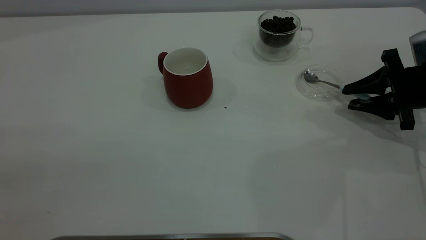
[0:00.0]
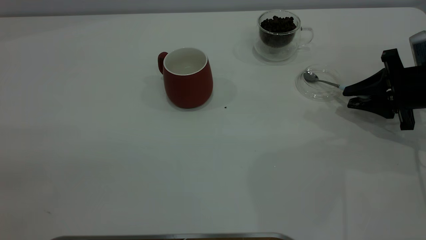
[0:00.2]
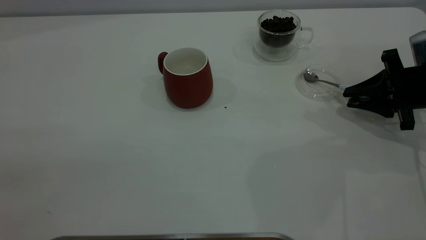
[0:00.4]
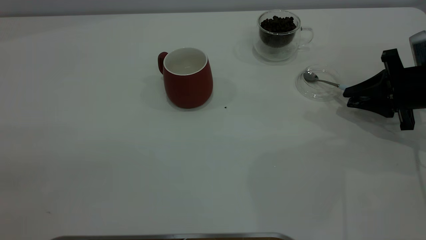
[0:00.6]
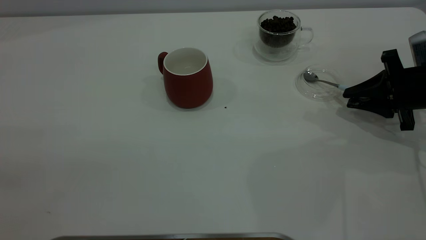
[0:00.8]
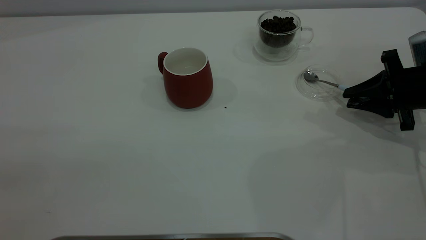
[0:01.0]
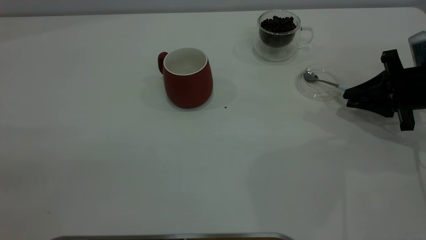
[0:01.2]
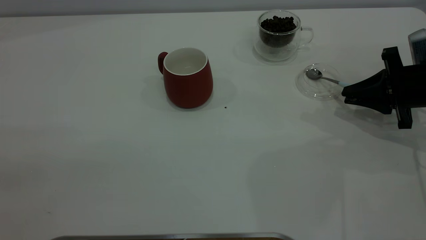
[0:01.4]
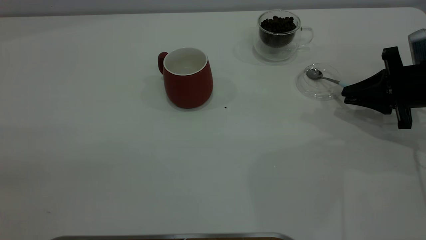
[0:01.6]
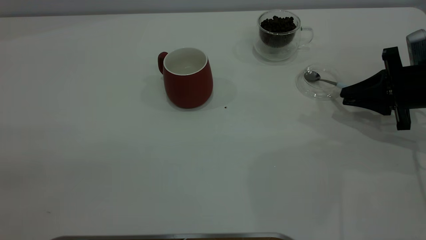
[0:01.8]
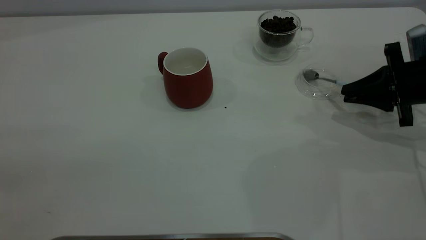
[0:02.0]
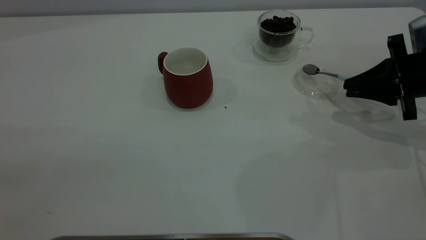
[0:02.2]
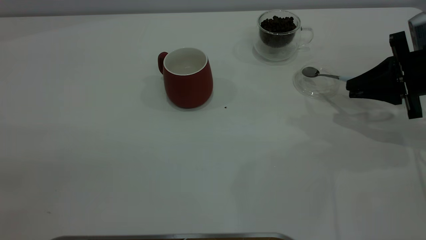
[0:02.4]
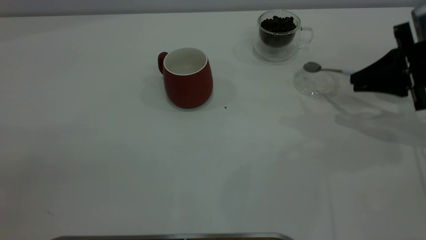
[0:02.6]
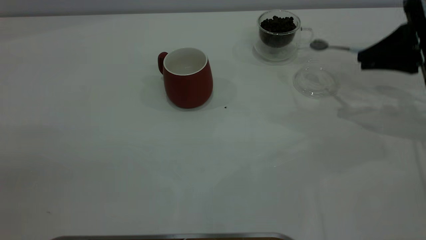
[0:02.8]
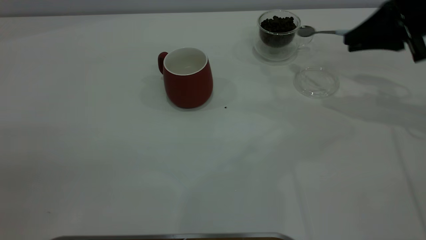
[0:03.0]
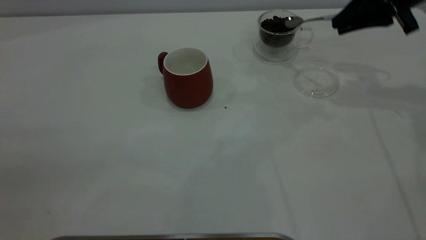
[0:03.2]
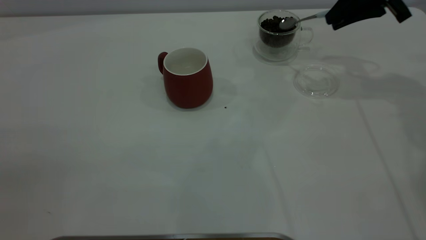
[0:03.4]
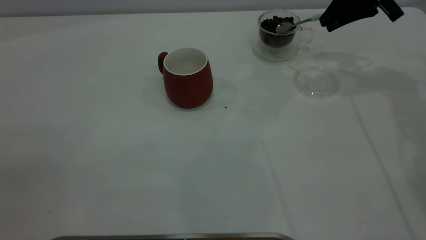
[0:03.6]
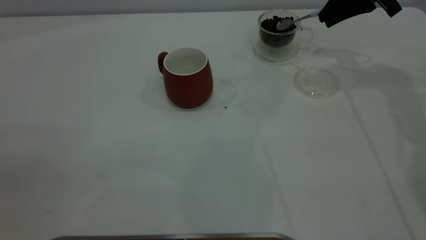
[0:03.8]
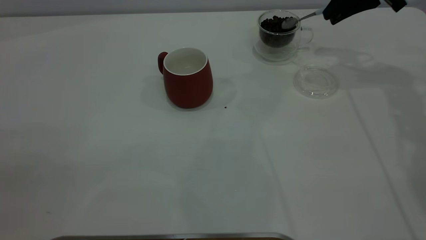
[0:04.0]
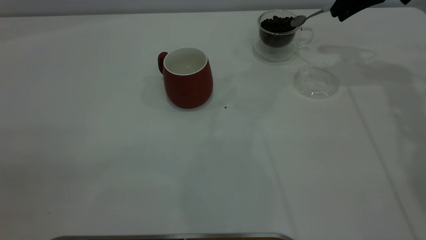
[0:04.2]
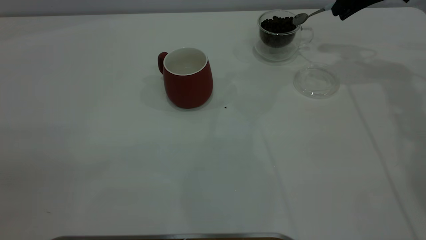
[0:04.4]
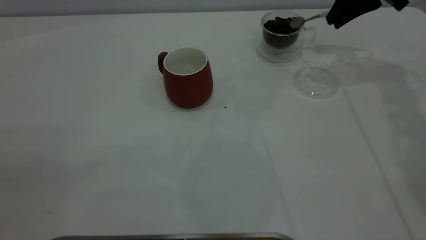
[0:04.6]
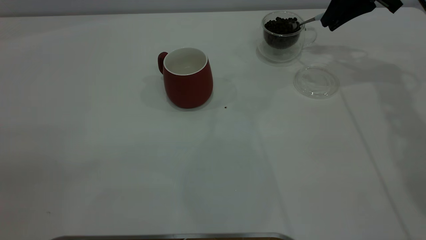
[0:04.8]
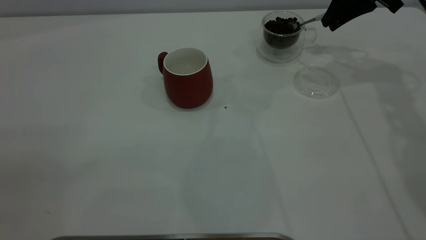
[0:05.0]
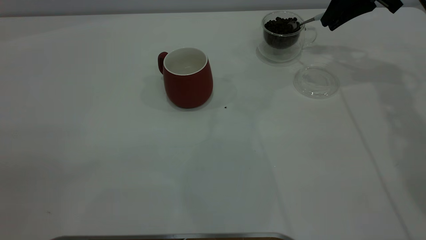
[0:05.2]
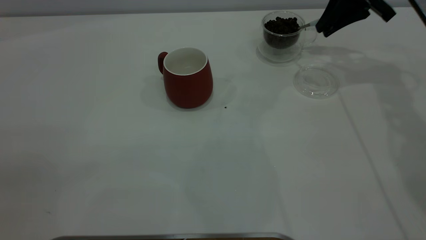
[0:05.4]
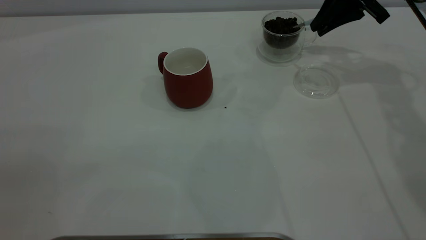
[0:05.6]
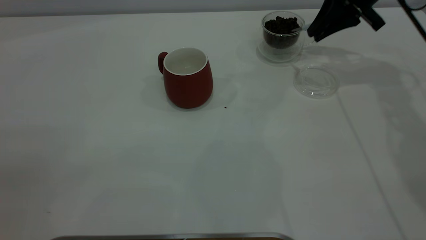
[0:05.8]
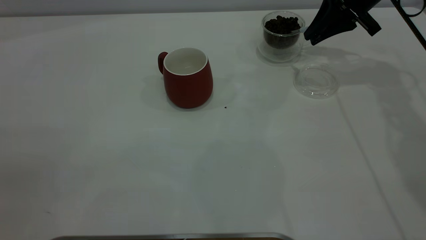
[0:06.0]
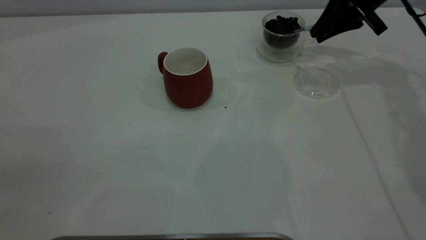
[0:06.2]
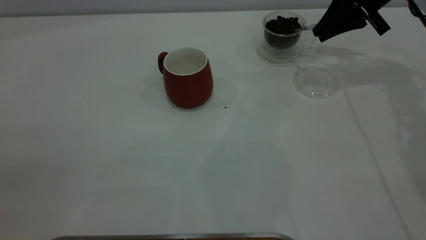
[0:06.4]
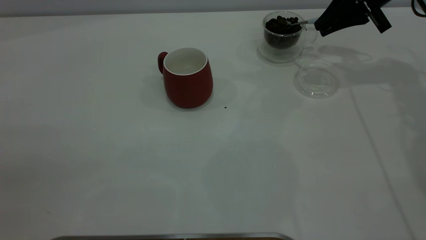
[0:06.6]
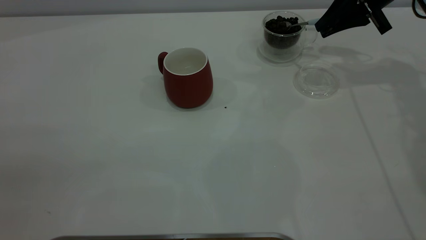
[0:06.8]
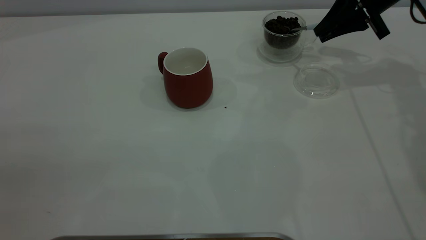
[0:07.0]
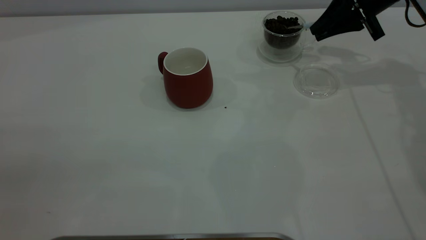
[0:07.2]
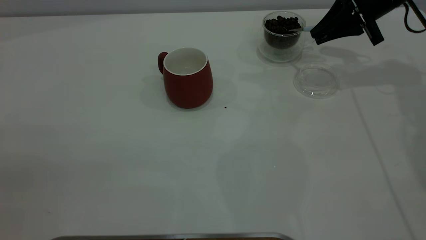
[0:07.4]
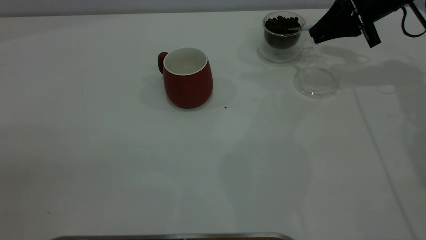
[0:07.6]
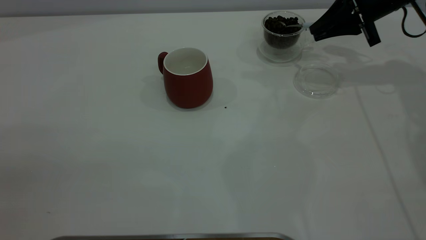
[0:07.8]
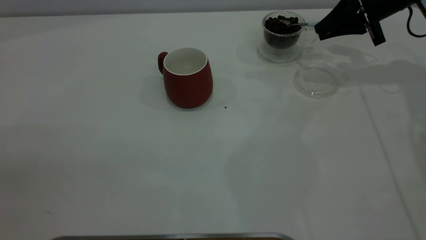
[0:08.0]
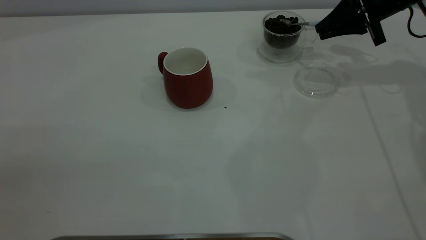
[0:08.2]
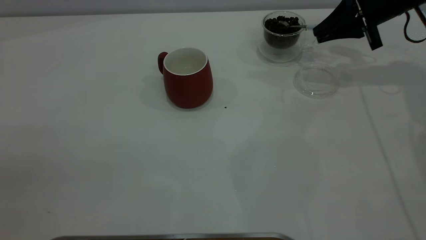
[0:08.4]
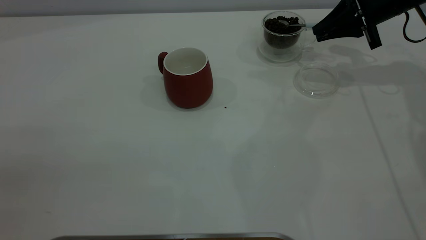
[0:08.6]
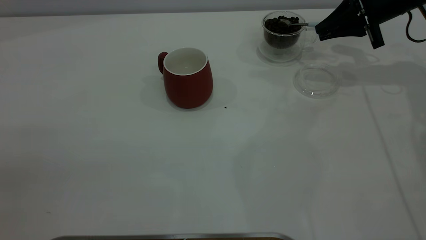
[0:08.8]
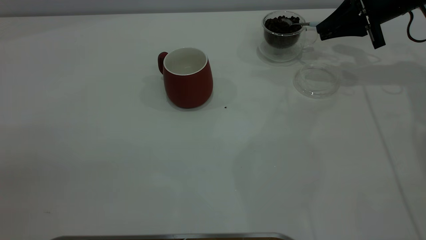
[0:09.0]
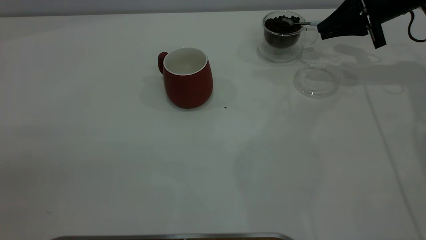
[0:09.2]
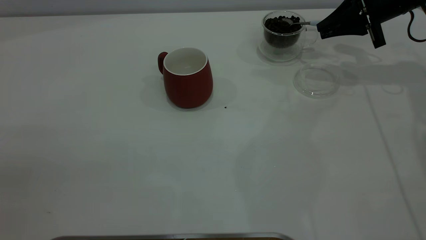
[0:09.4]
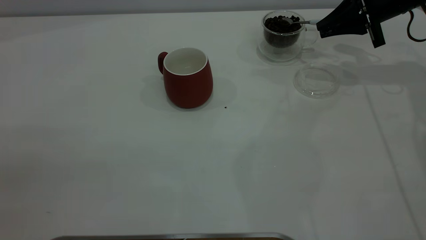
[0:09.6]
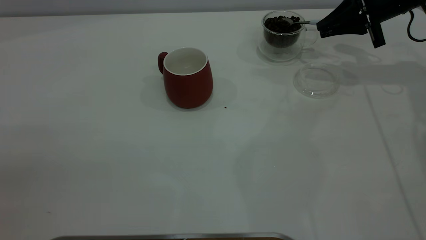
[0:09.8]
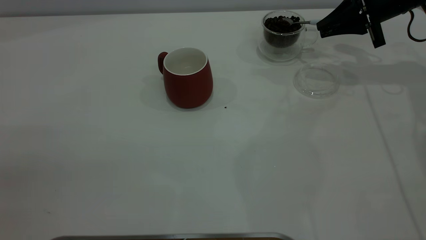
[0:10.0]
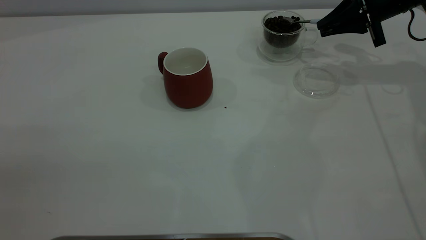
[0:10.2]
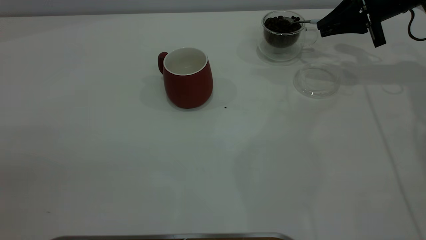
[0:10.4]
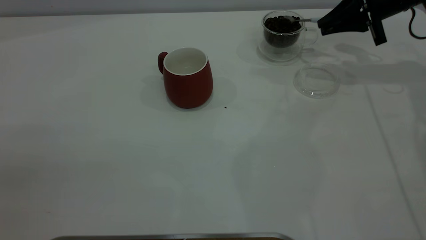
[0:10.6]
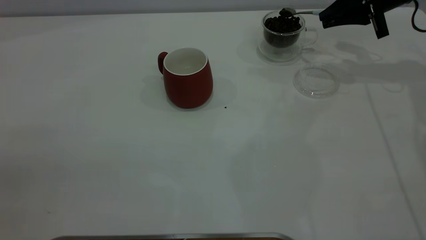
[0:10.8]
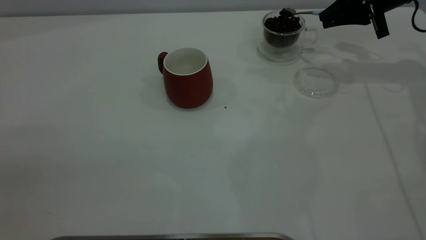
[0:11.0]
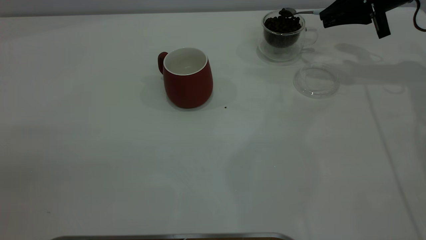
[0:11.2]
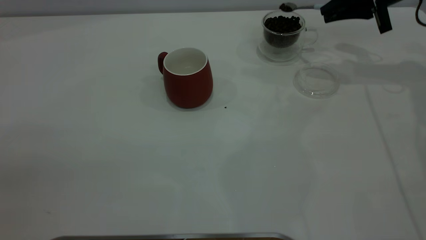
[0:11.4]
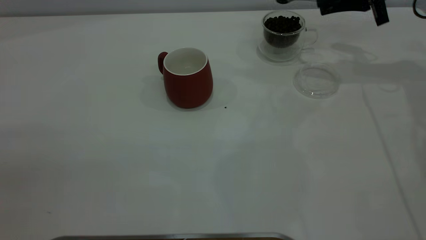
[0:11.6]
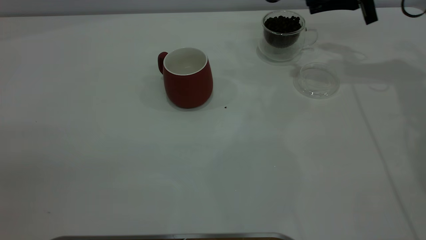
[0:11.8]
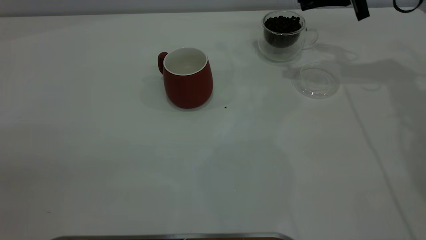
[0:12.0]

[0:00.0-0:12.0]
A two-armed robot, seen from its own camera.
Task of the whole recording: the left gripper place the red cup in the center of the table, the right gripper take the blue spoon from the cup lid and scoop out the coffee beans from the coffee cup and put them into the red cup, the right gripper put the spoon back into the cup lid.
Step, 0:00.0 to 0:02.4: Pick up the spoon.
0:00.0 to 0:01.6: The right gripper closes up.
0:01.6 to 0:03.0: The right gripper shifts approximately 10 cm upward.
0:03.0 to 0:04.4: The right gripper heads forward, covering some 10 cm.
0:04.4 to 0:06.0: The right gripper changes place by roughly 5 cm.
0:06.0 to 0:09.0: The grippers stay close to where they were, moving slightly.
0:09.0 to 0:10.4: Both grippers stay about where they are.
0:10.4 to 0:12.0: The right gripper goes about 5 cm upward.

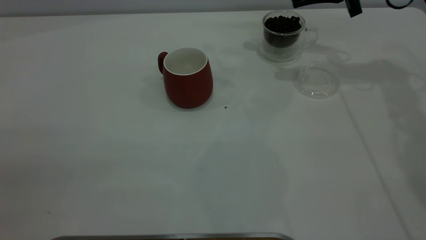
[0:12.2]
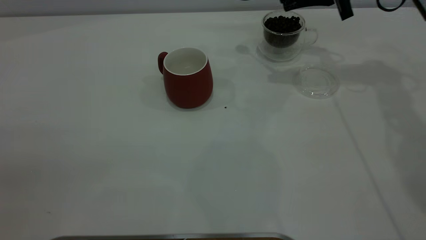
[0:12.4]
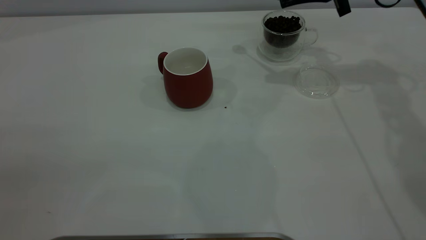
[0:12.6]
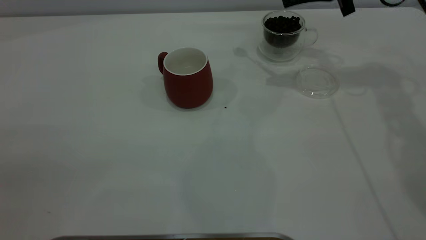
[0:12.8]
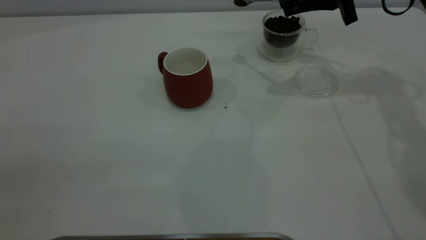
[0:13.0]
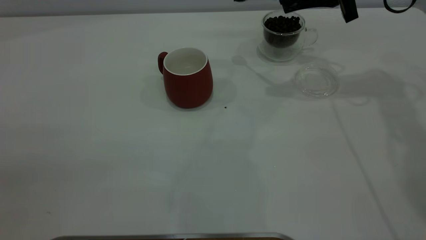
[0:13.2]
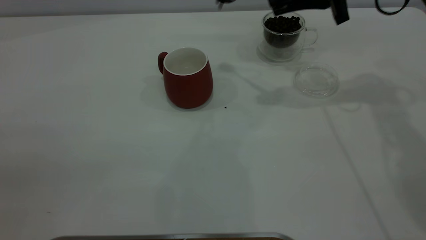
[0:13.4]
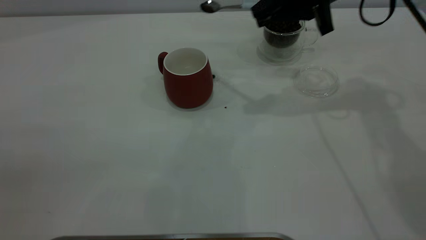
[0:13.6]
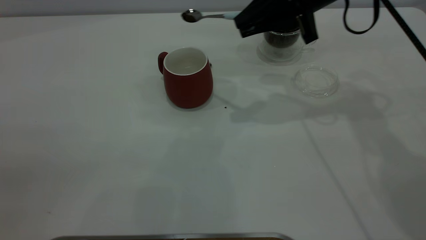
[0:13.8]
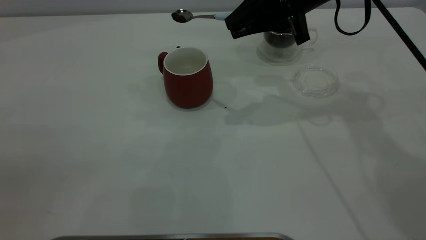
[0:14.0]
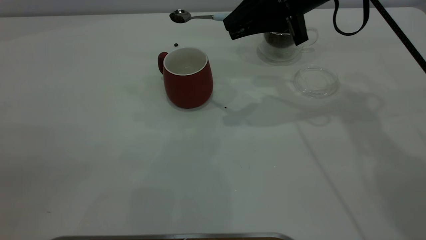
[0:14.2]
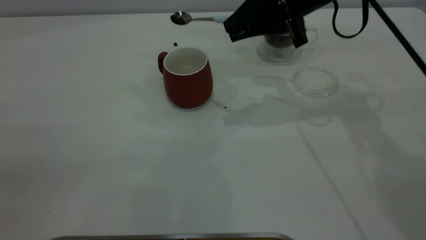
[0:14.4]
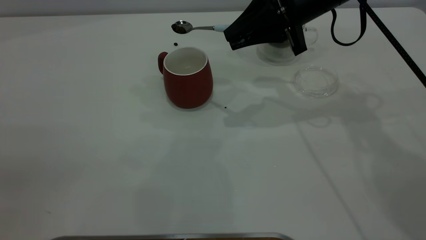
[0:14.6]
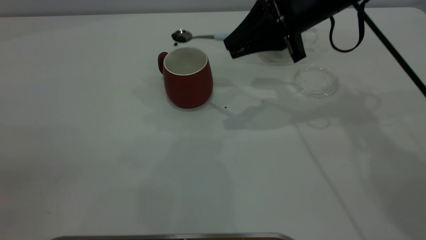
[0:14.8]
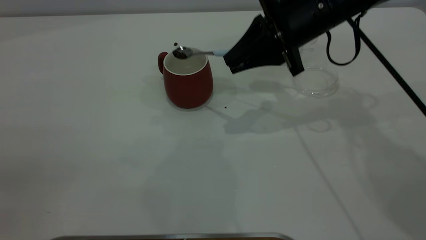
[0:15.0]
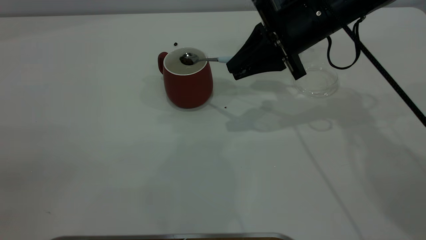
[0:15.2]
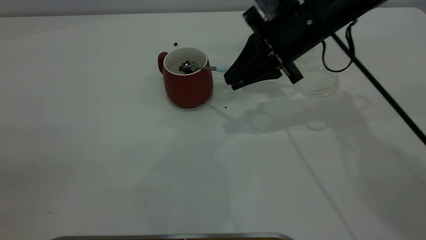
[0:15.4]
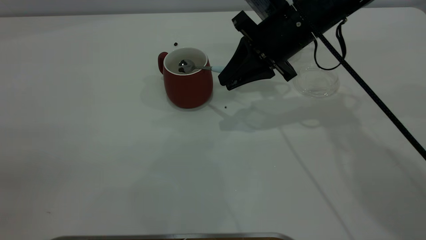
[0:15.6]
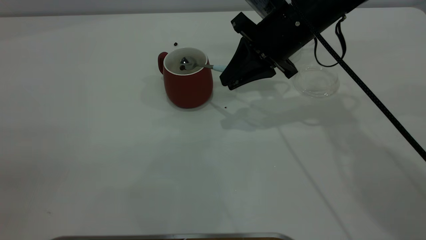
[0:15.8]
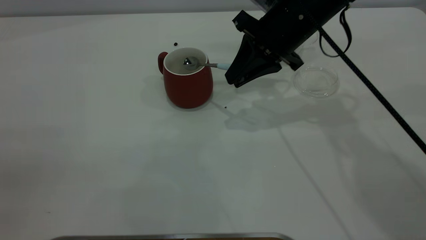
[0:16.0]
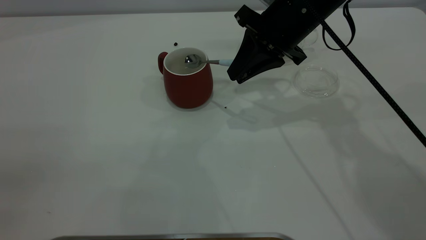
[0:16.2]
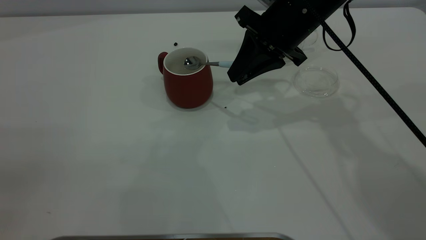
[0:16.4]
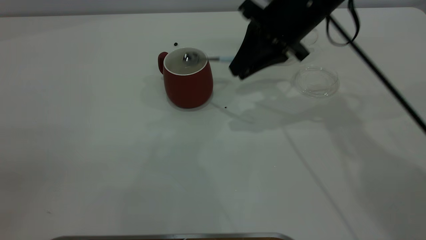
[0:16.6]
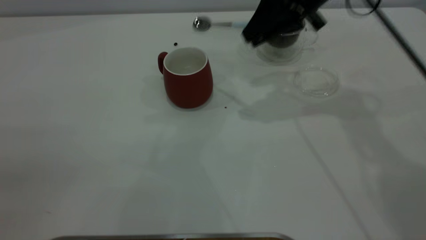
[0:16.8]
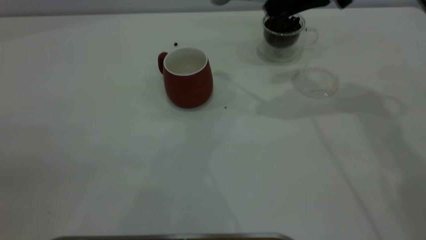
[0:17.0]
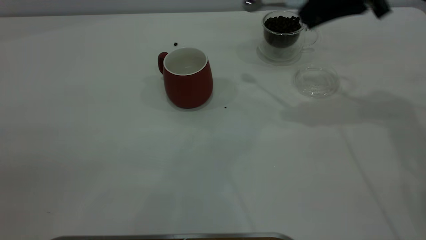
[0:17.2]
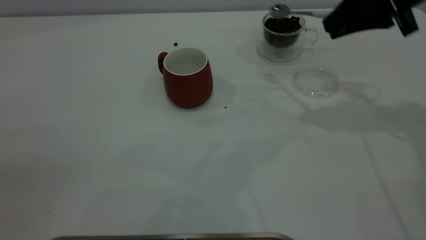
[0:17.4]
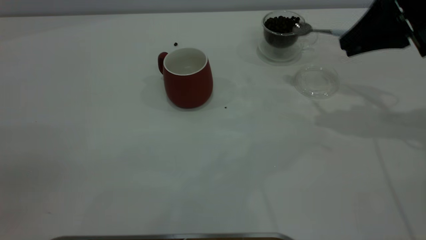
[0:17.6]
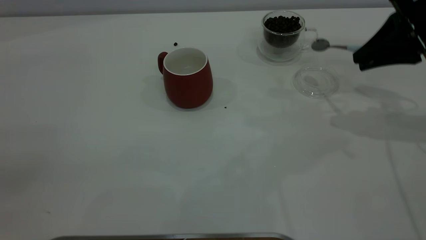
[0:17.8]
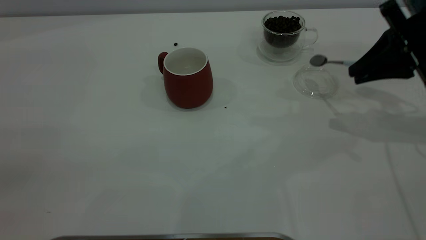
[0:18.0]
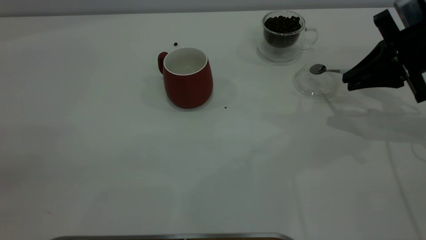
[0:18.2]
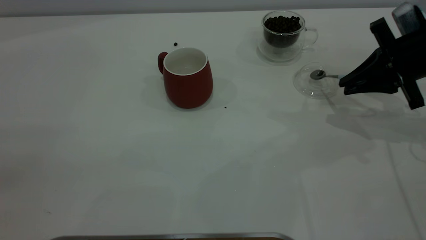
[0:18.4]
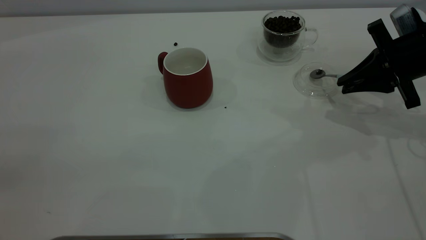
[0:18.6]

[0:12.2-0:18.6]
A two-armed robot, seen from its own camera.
Task of the whole recording: the left gripper place the red cup in the center of the table, the right gripper take the blue spoon from the cup lid and scoop out the coffee beans from the coffee cup and put them into the red cup, the right gripper put the spoon back into the cup lid.
Step, 0:12.2 to 0:16.6: Scoop a spoonful of beans into the cup.
0:12.2 to 0:13.8: The right gripper goes roughly 10 cm to the left and backward.
0:13.8 to 0:15.4: The right gripper is displaced downward by about 5 cm.
0:15.4 to 0:17.0: The right gripper shifts about 10 cm upward and to the right.
0:17.0 to 0:18.6: The right gripper is displaced downward and to the right by some 20 cm.
